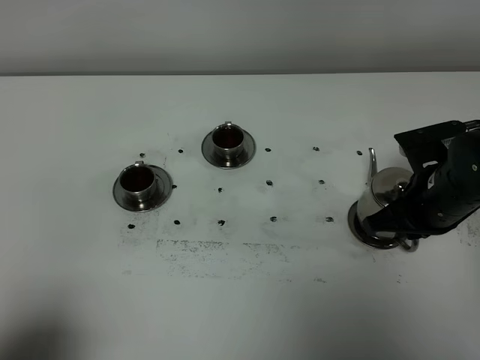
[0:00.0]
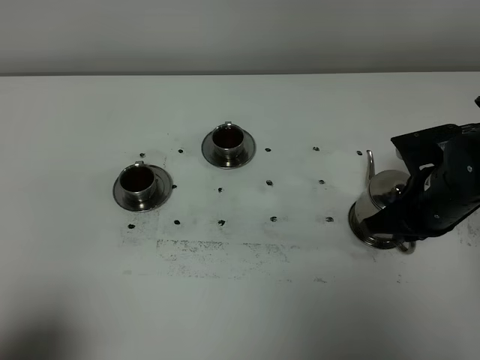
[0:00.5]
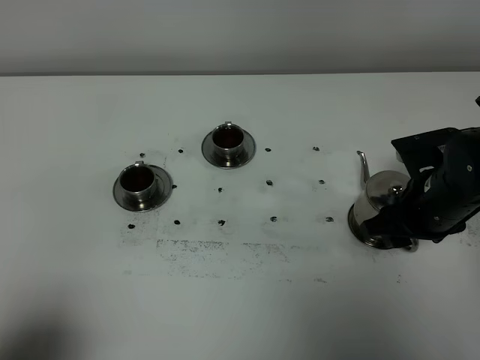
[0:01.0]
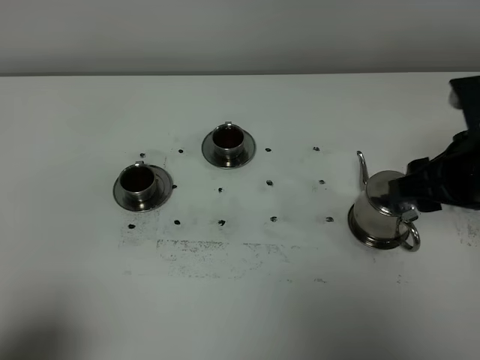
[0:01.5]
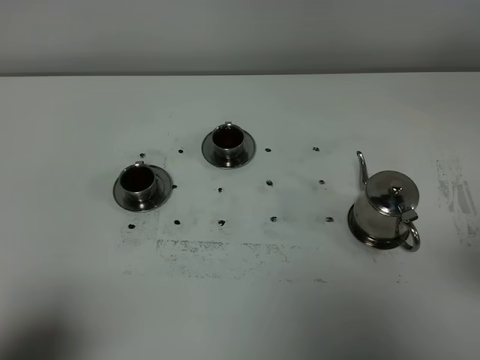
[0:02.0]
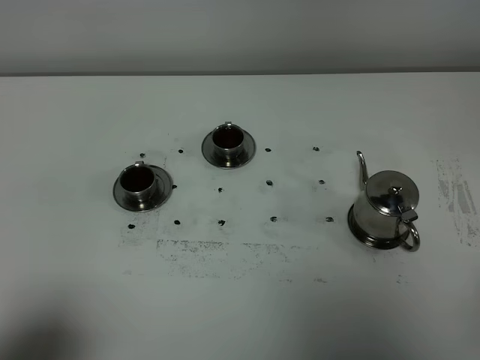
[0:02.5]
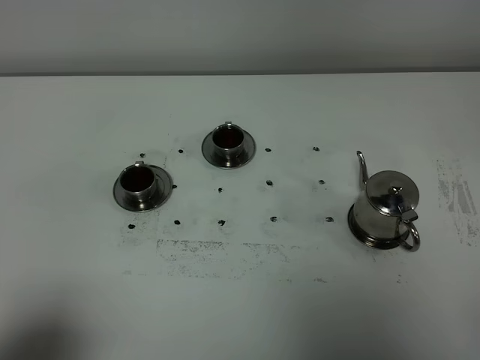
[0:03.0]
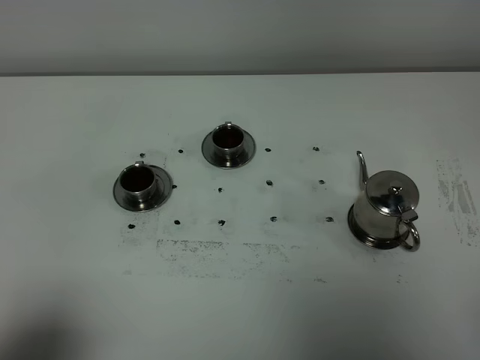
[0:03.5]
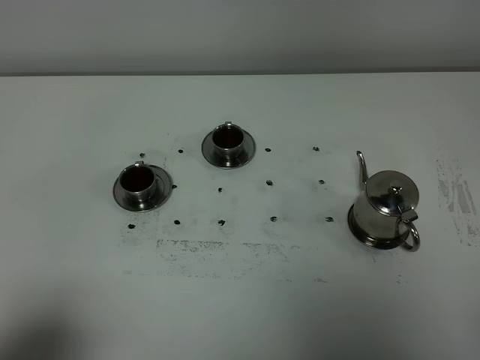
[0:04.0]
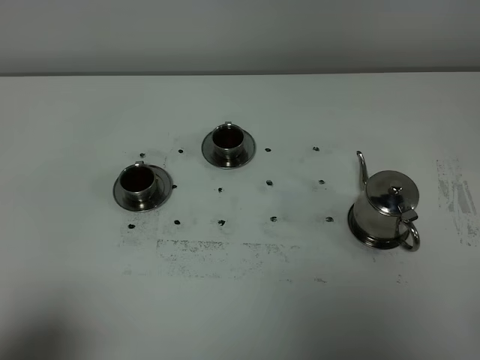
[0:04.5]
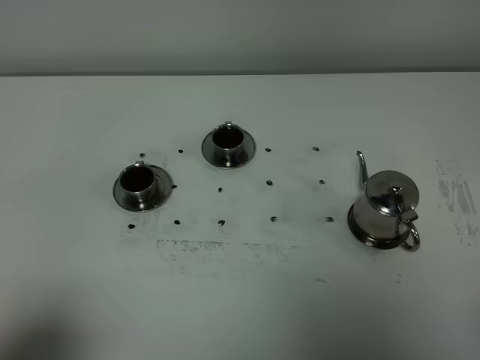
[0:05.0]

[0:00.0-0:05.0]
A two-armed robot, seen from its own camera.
Task of the whole recording: grasp the stainless steel teapot and pour the tea into the two stainless steel teacups one by one, put the stainless steel teapot back in its original place.
0:00.0 to 0:02.5: The right gripper heads backward and upward, covering roughly 30 cm, and opens up.
